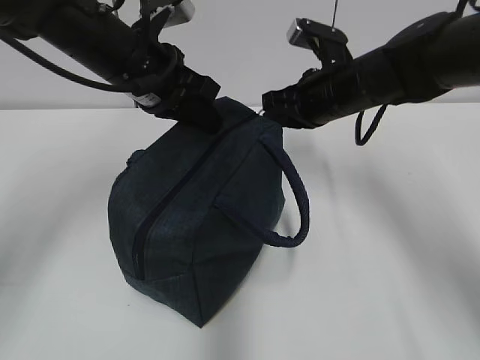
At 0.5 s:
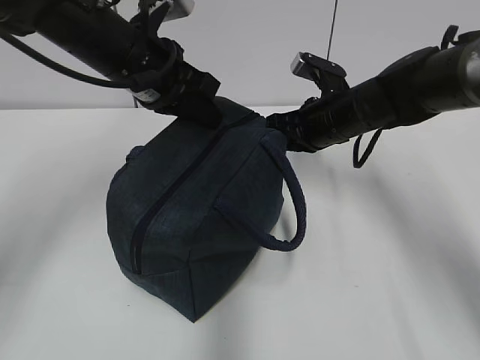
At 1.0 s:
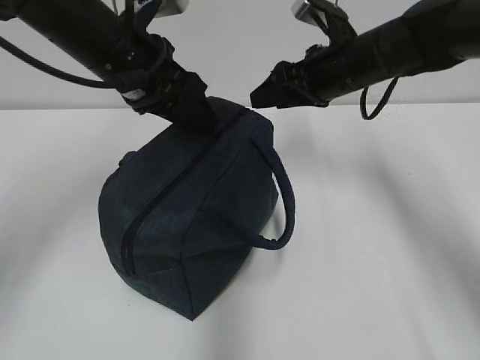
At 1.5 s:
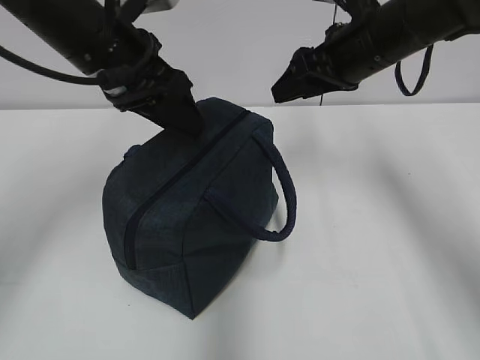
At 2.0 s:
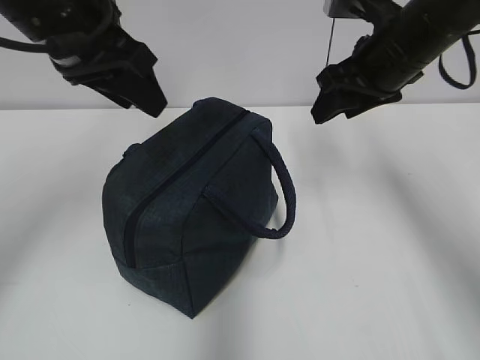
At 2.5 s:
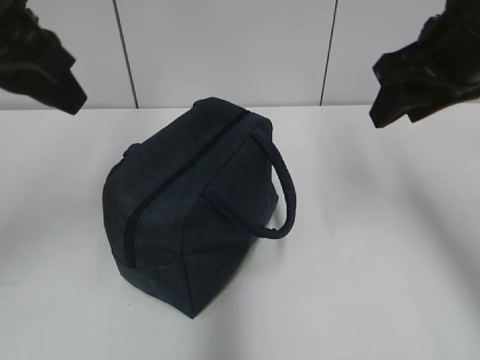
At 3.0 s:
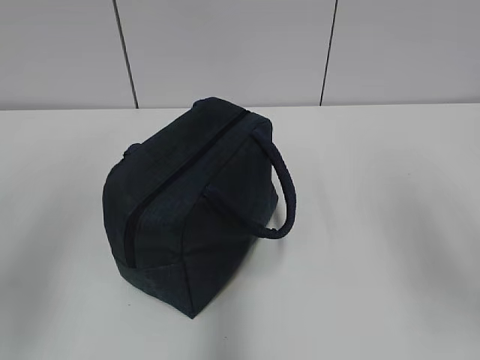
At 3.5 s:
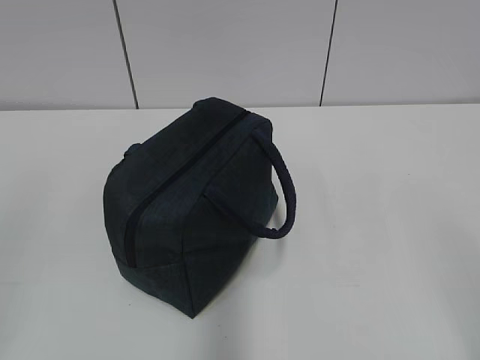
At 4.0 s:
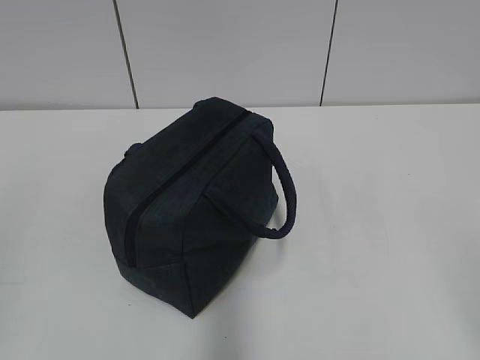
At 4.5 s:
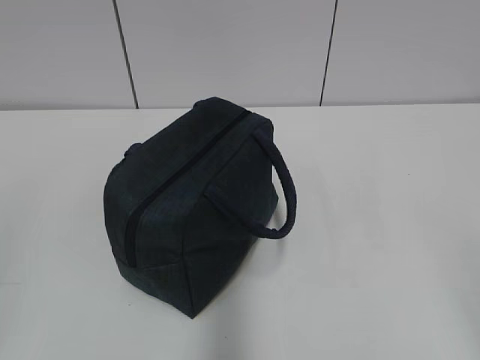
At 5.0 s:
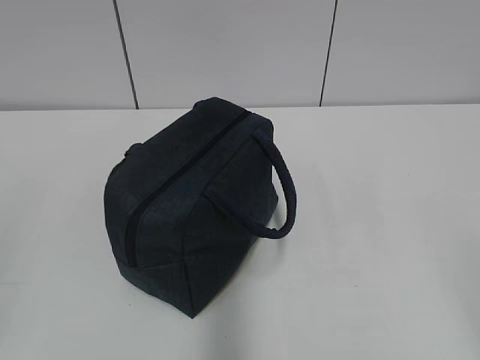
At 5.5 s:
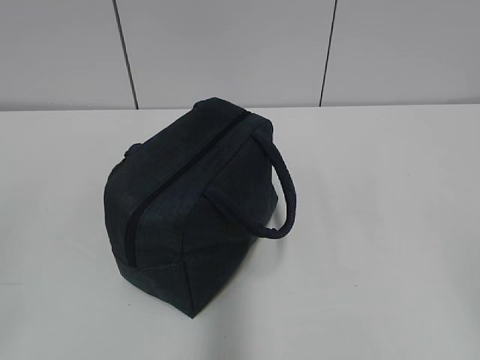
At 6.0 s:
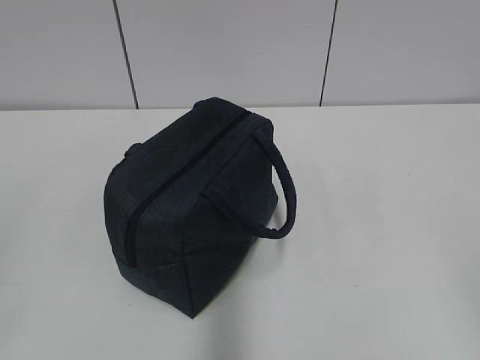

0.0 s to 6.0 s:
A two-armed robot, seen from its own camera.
0.0 to 2.0 s: The right gripper travels upward by some 10 cm, and opens its fingers. Meanwhile the left gripper goes approximately 10 cm upward and backward, and opens.
2.0 to 4.0 s: The left gripper is displaced backward and to the left by about 35 cm, while the right gripper moves backward, approximately 40 cm.
